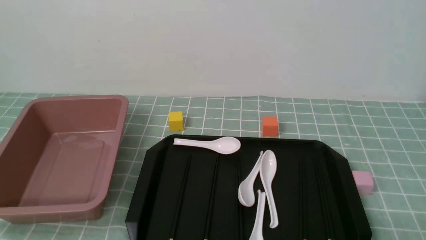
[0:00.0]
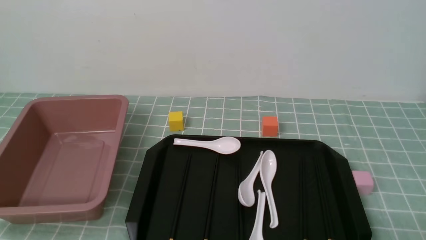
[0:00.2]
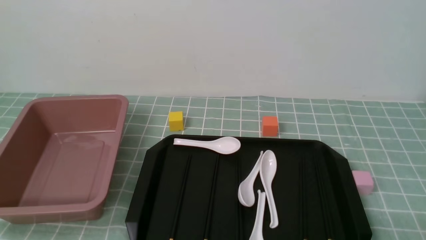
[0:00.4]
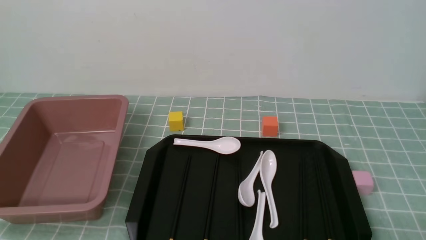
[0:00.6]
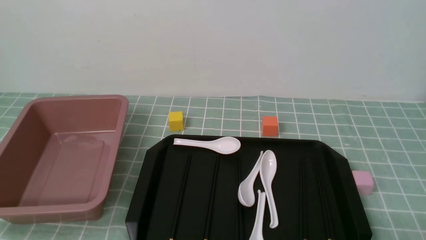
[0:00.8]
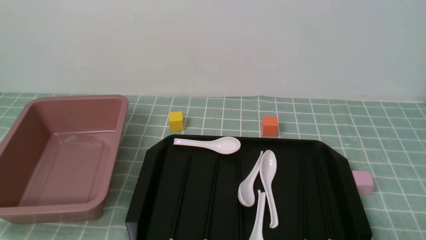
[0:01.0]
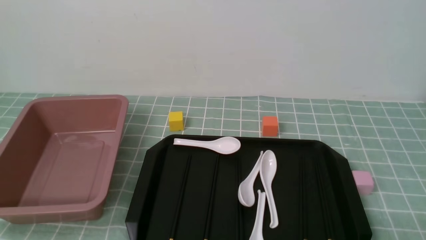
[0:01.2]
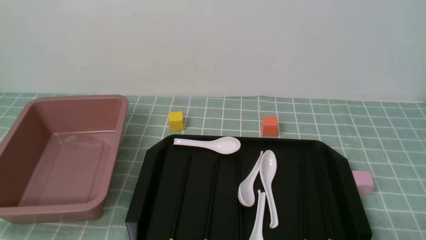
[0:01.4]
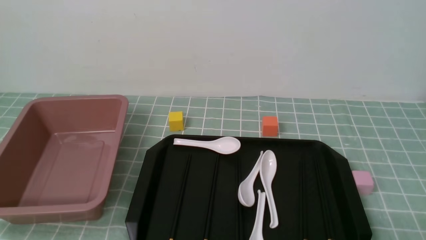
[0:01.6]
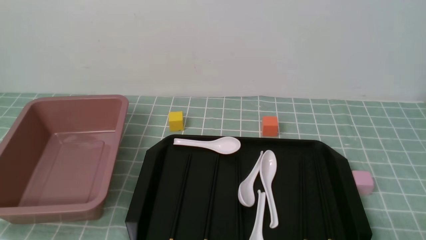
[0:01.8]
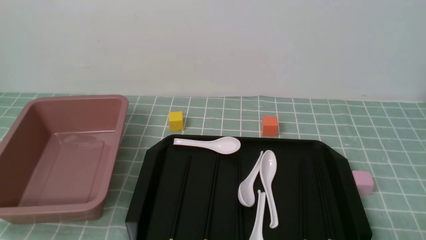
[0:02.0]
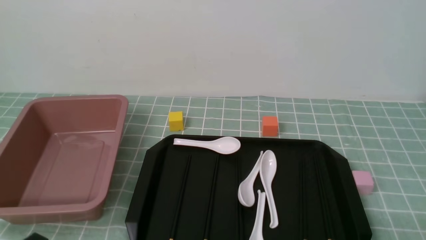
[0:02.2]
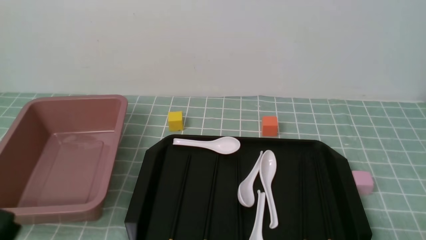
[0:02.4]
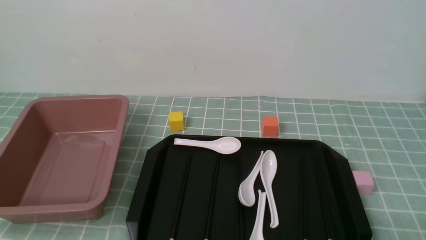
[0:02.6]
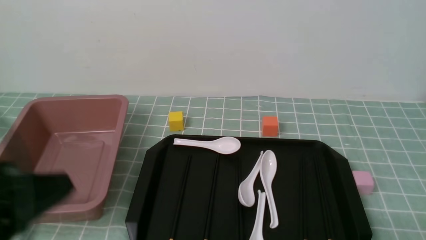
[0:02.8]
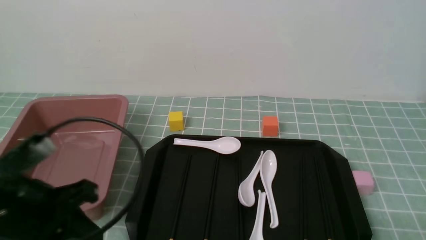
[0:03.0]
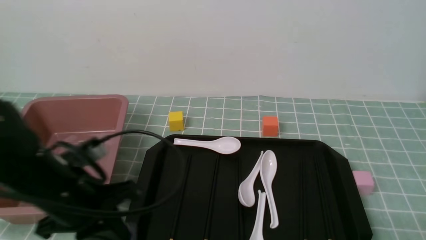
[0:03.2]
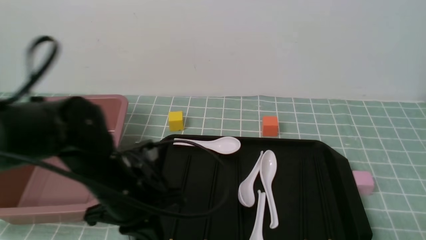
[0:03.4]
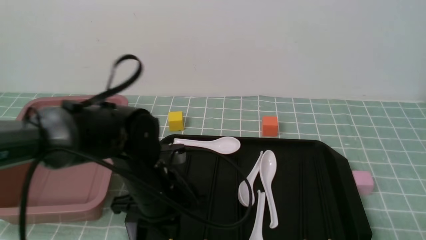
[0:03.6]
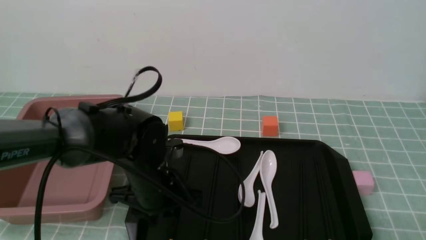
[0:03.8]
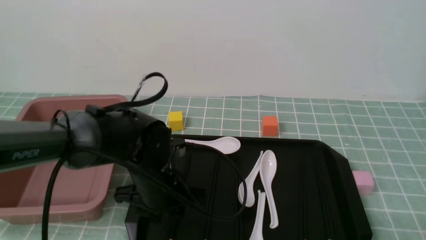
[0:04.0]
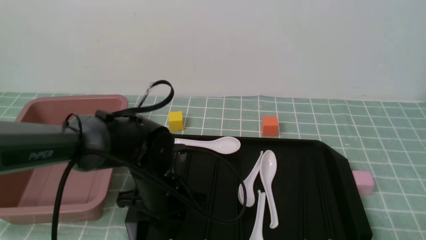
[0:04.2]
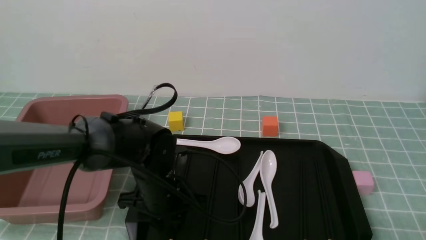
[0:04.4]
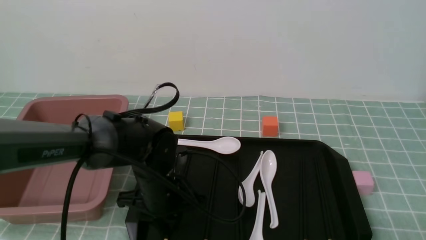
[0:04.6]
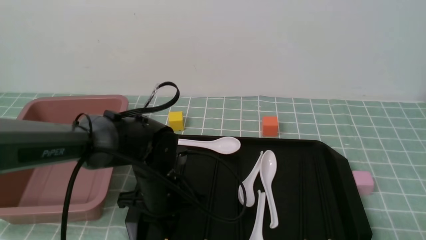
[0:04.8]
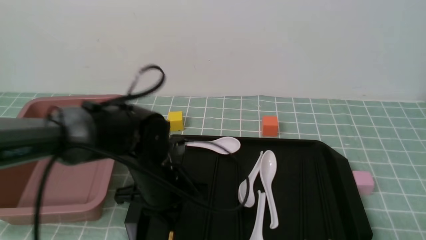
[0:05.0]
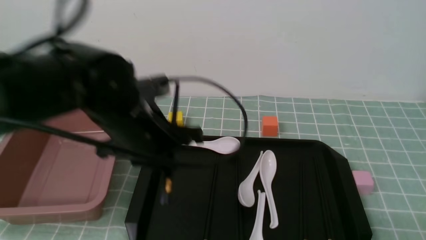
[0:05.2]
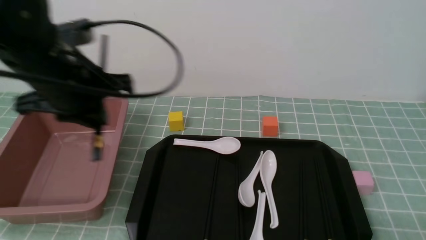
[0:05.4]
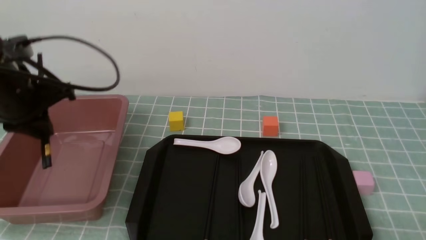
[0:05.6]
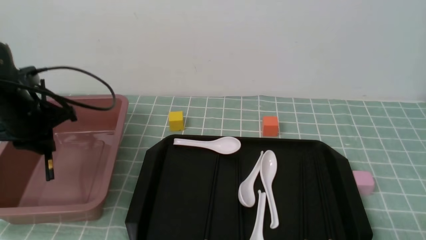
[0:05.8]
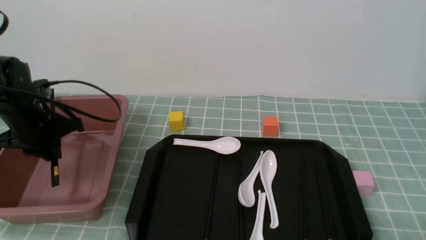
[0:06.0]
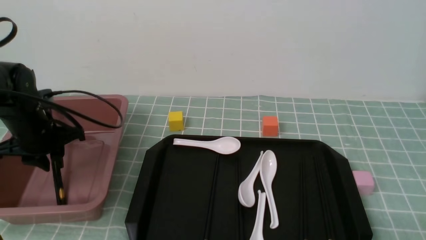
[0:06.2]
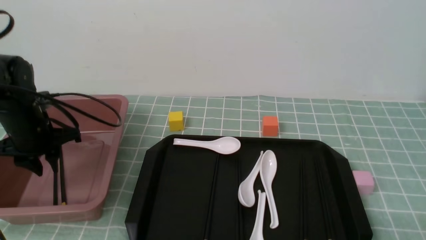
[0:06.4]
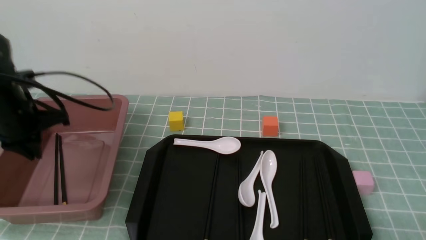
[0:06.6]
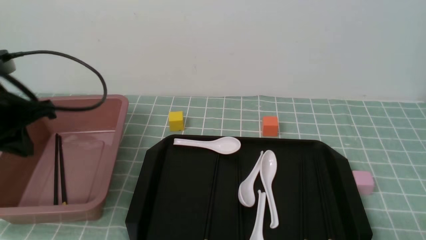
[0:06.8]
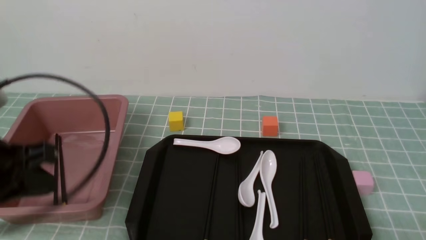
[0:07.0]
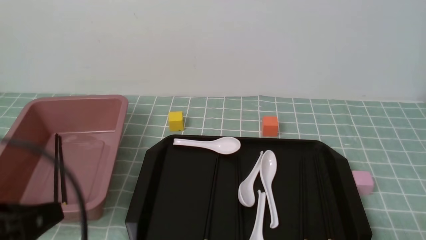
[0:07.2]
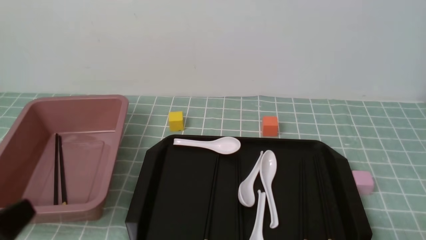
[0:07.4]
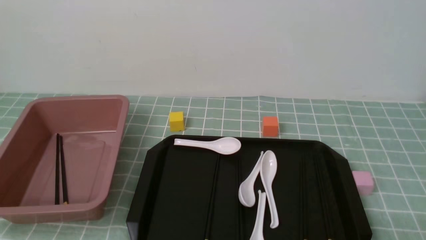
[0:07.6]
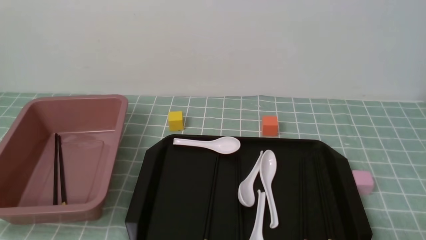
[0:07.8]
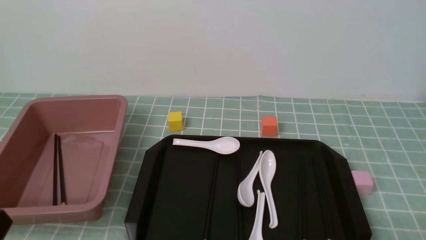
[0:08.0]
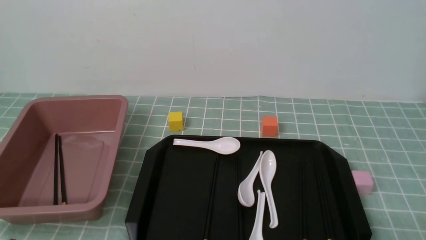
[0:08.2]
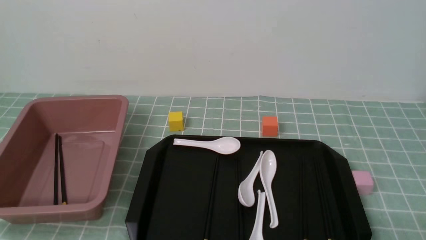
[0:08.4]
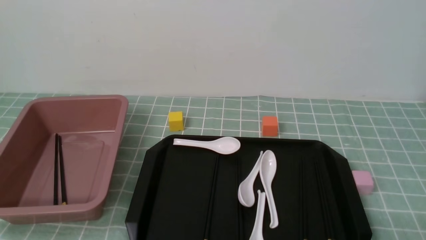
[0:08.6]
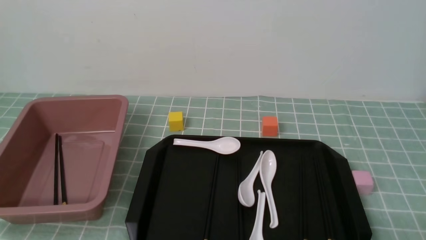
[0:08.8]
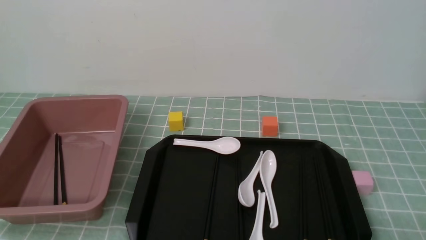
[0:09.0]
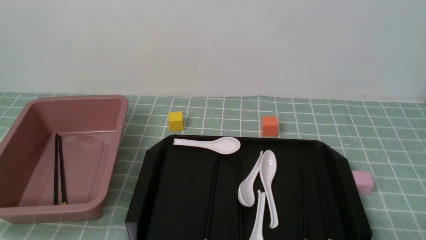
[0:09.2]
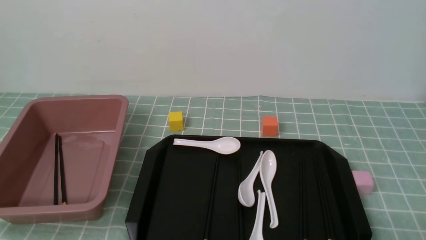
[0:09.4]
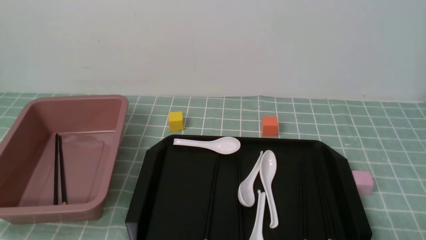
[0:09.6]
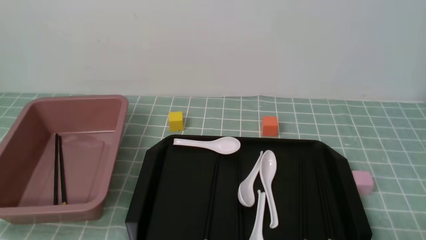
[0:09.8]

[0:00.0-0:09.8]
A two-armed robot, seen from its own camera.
Step, 0:00.0 to 0:05.2: use the left arm to grab a pair of chopsticks.
Step, 0:05.4 to 0:06.6: use the left arm to put the chopsticks into the lunch box.
0:01.4 to 0:02.8: The left gripper travels upward by some 15 cm, and closes its fingers.
0:02.8 to 0:04.2: The left gripper heads forward, to the right and downward, covering roughly 30 cm, and opens up.
0:04.2 to 0:05.6: The left gripper is displaced upward and to the left by about 20 cm, and closes.
0:05.6 to 0:07.0: The left gripper travels backward by roughly 10 cm, and closes.
0:07.0 to 0:08.4: The left gripper is displaced backward and downward by roughly 20 cm.
